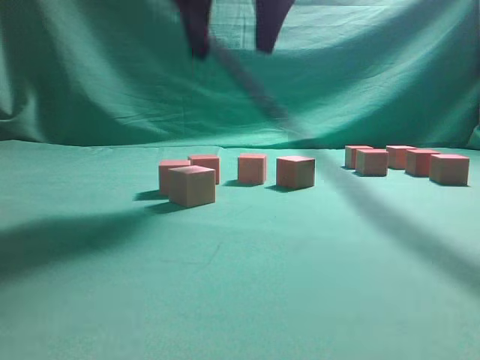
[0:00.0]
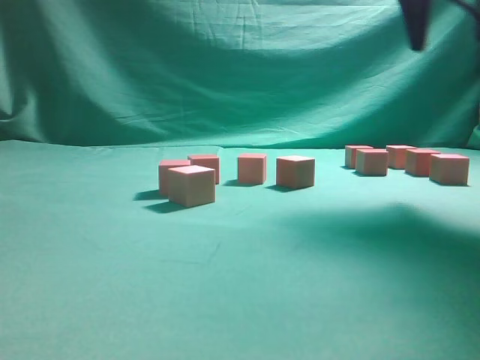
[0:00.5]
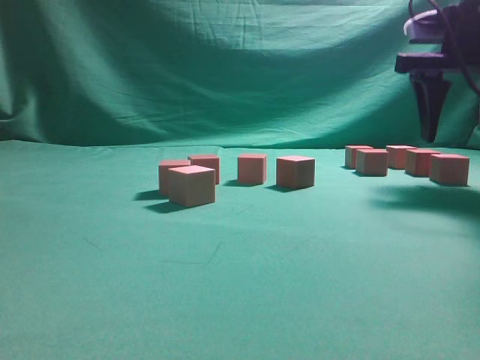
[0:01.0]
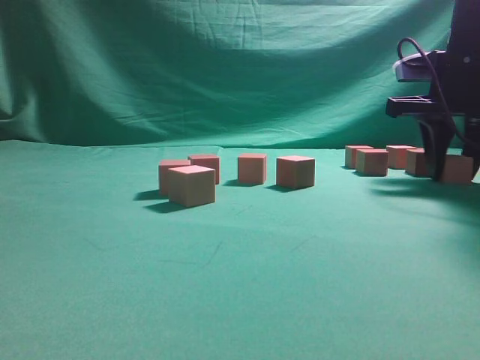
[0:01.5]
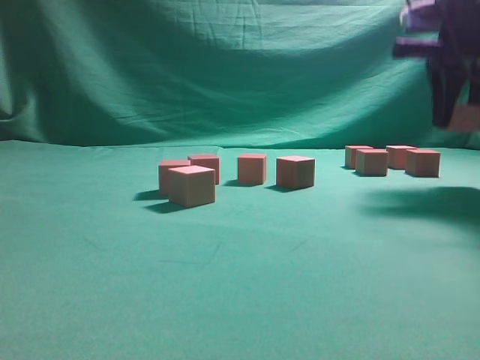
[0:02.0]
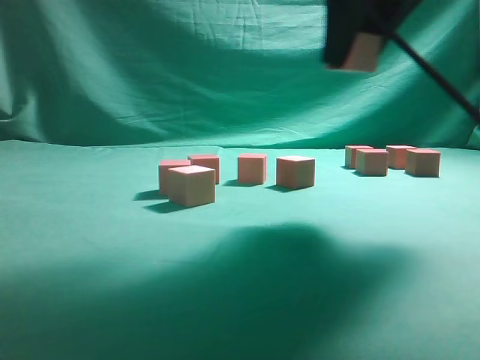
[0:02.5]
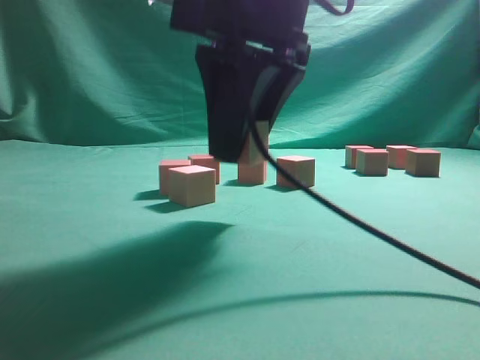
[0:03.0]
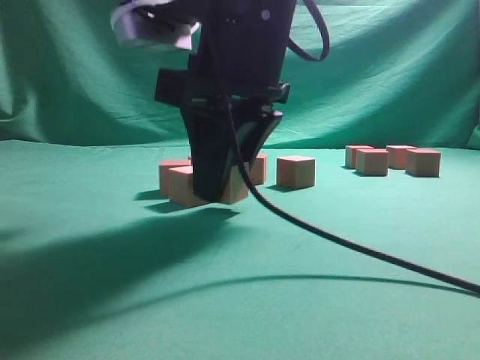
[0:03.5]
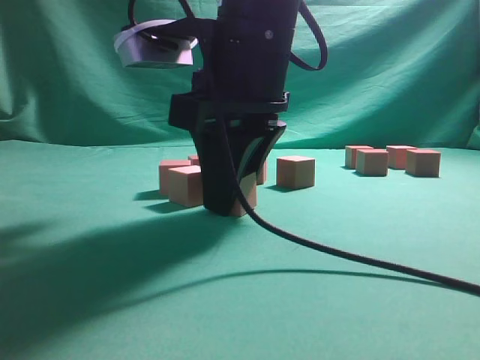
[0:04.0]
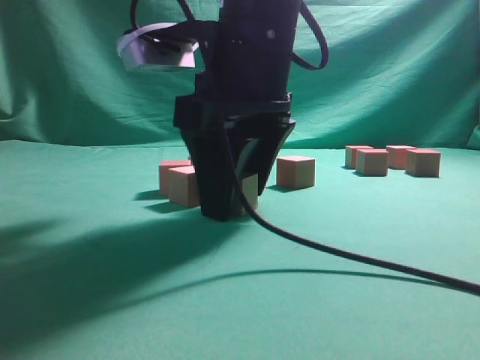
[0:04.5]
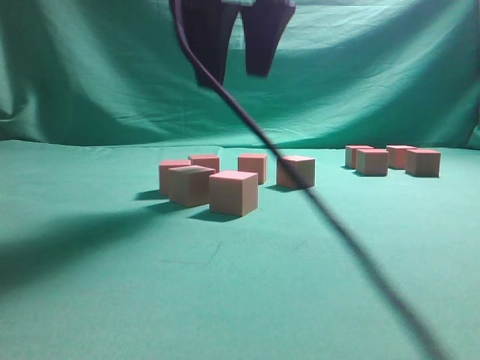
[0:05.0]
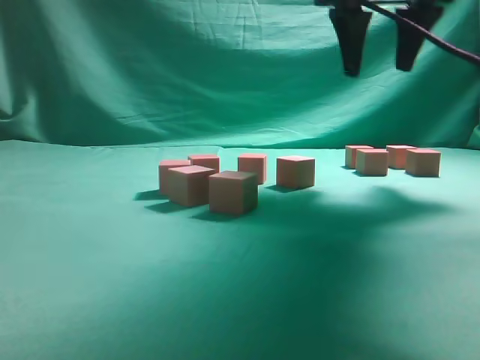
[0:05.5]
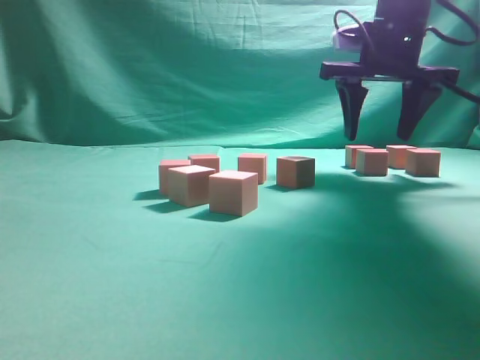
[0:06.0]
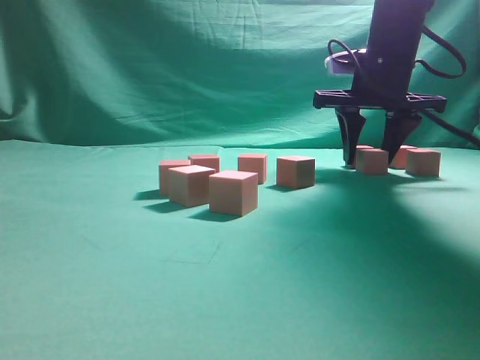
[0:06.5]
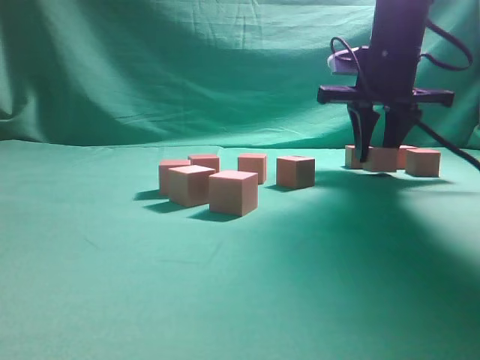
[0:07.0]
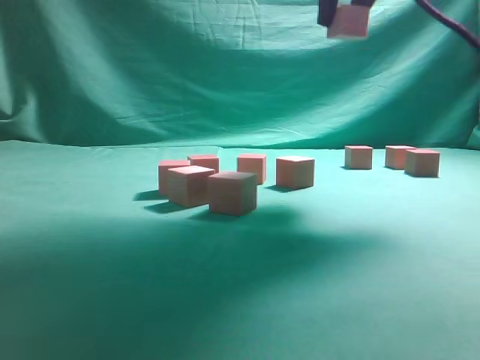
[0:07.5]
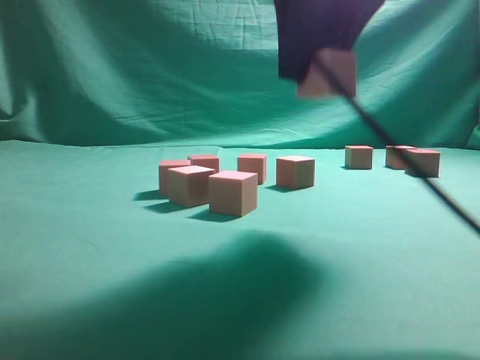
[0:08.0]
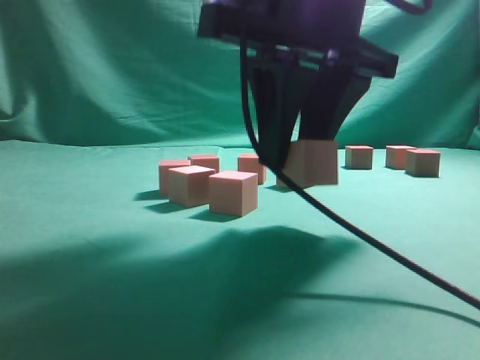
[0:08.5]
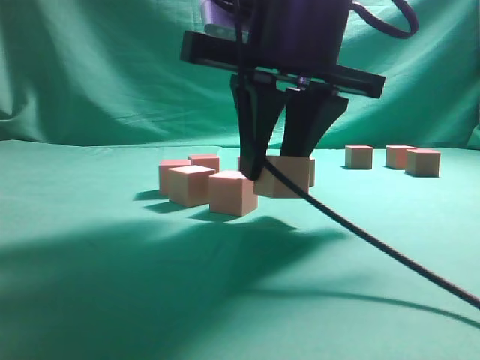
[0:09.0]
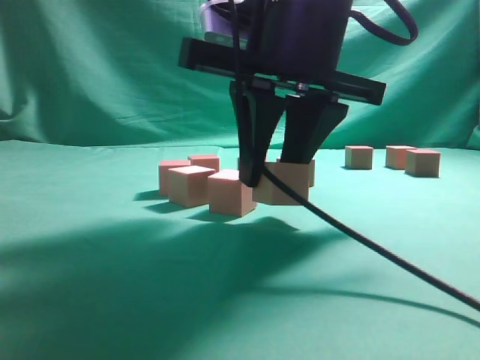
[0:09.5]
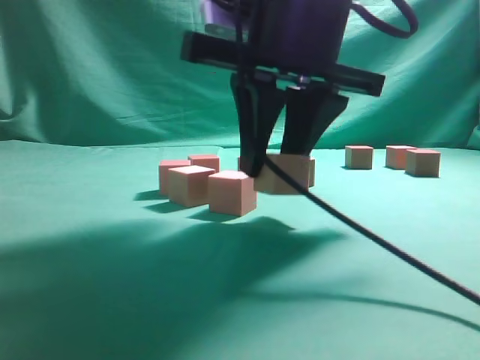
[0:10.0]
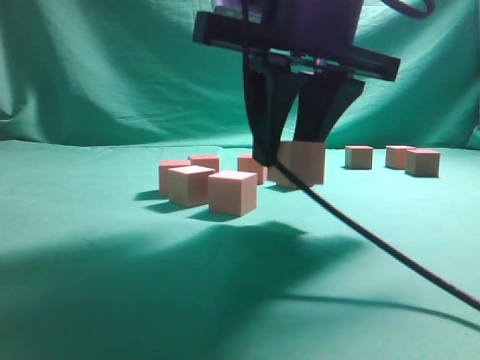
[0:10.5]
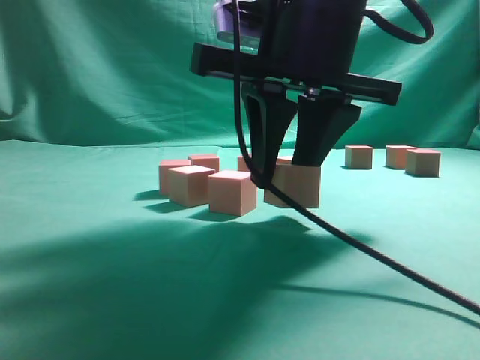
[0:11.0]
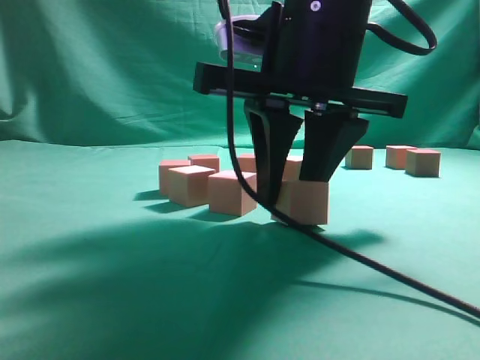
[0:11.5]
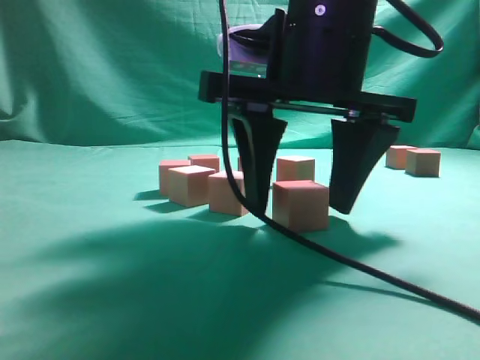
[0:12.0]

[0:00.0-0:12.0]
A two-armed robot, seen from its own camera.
Task of the whole recording: pick up the multiple cubes in two columns one by one and place them in another position on the table.
Step, 0:00.0 to 0:01.5: Pick up the block on the table.
Step, 0:02.0 to 0:05.0: Place the block at the correct position to assemble the letter S.
Step, 0:05.5 to 0:07.0: Pick up the block on the table.
0:00.0 to 0:02.0: The right gripper is displaced to the right by about 25 cm, and closes up.
0:02.0 to 0:04.0: The right gripper is displaced to the left and backward by some 25 cm.
0:04.0 to 0:06.0: The right gripper shifts approximately 25 cm forward and to the right, and opens up.
0:06.0 to 0:08.0: The right gripper goes about 20 cm backward and to the left, and closes up.
0:08.0 to 0:10.0: The right gripper shifts roughly 10 cm downward.

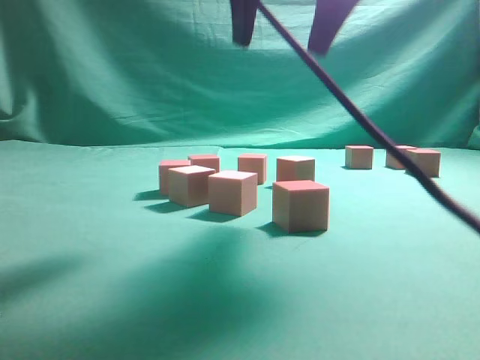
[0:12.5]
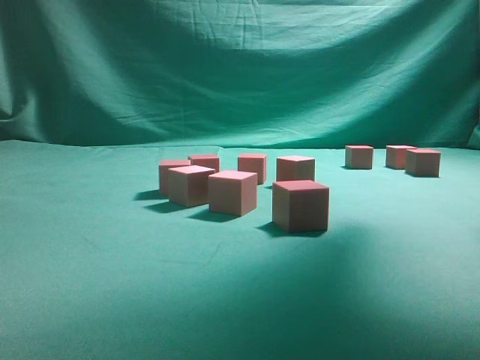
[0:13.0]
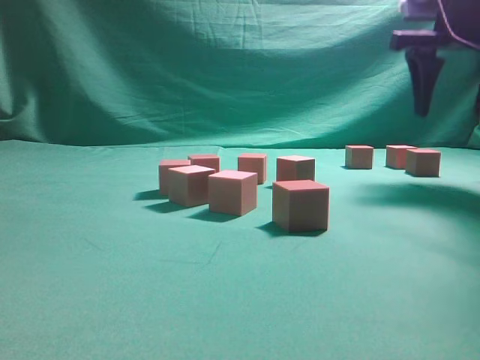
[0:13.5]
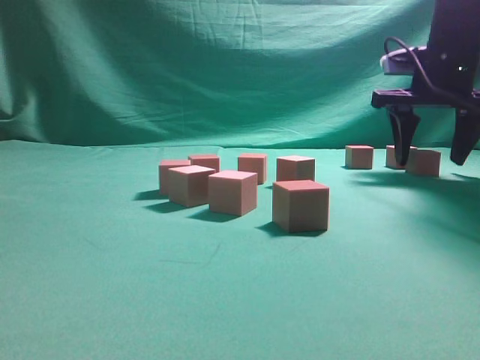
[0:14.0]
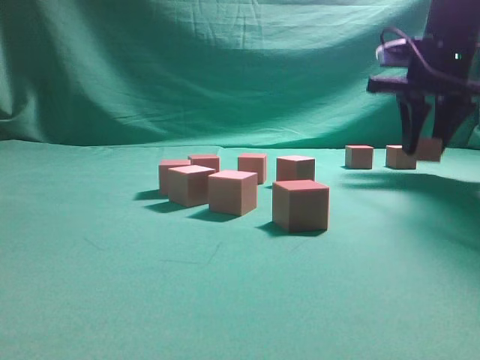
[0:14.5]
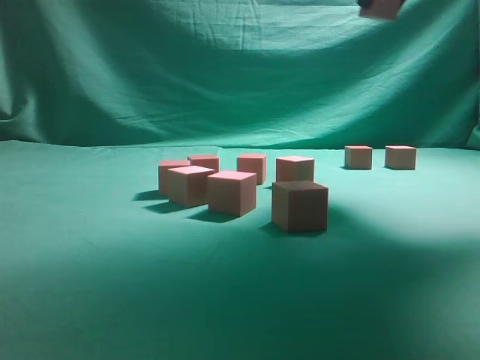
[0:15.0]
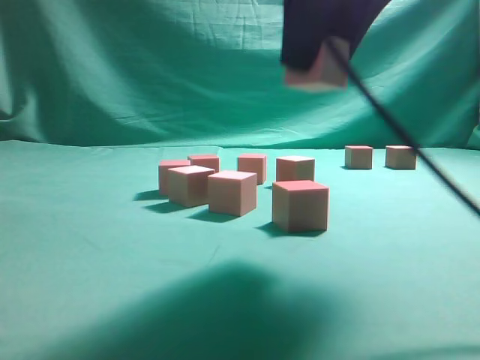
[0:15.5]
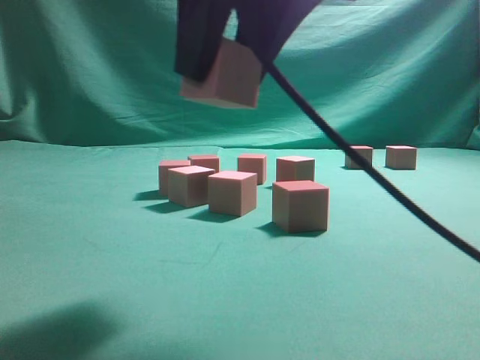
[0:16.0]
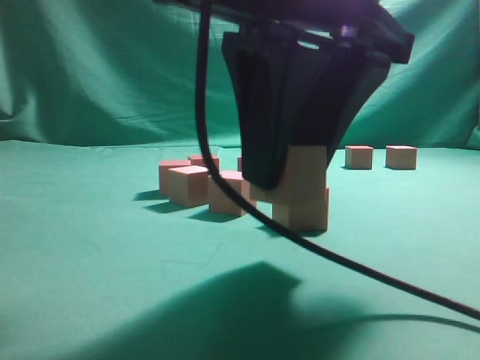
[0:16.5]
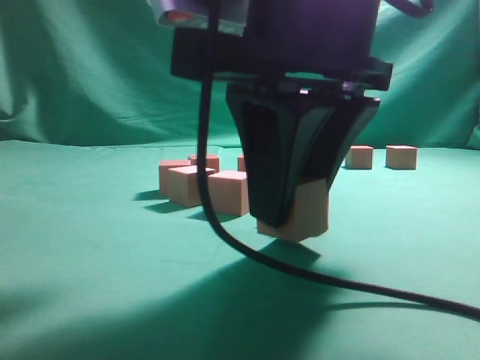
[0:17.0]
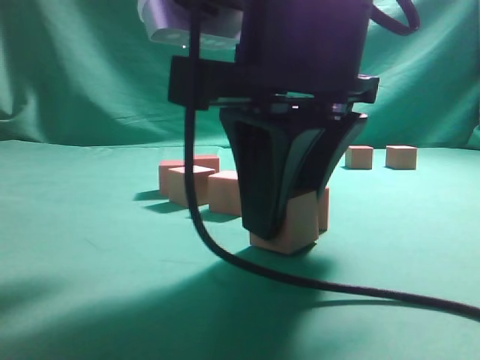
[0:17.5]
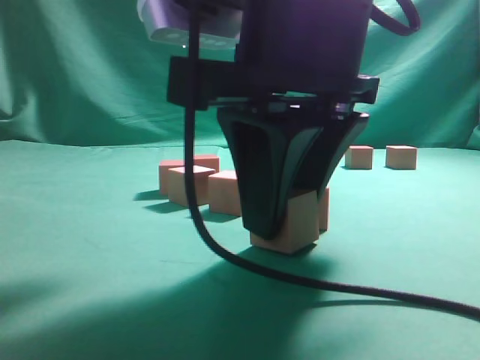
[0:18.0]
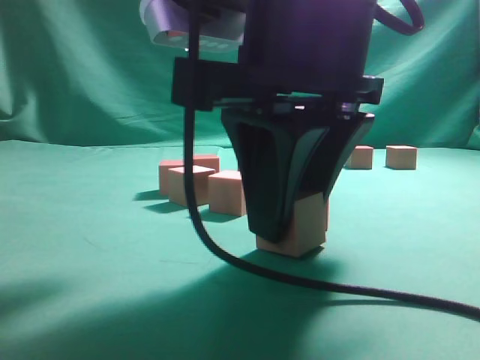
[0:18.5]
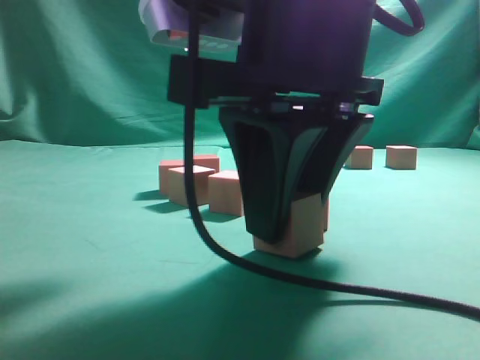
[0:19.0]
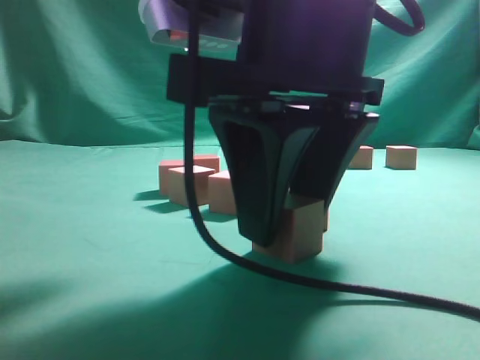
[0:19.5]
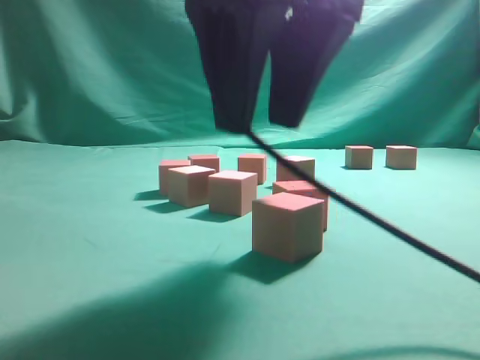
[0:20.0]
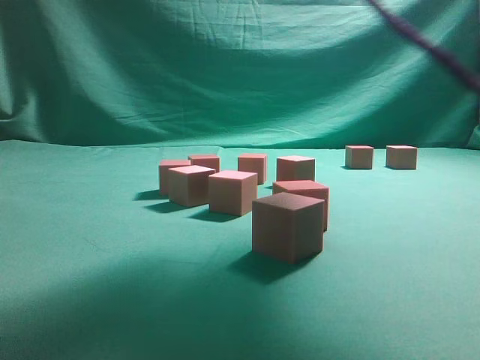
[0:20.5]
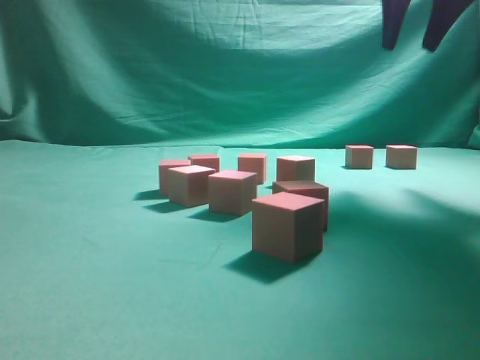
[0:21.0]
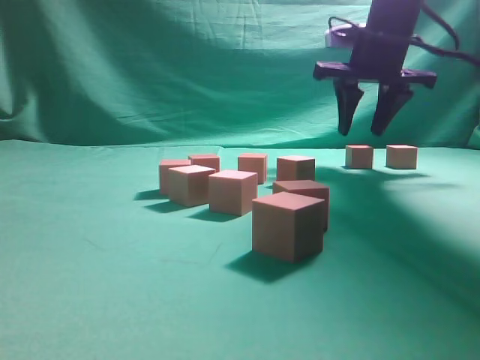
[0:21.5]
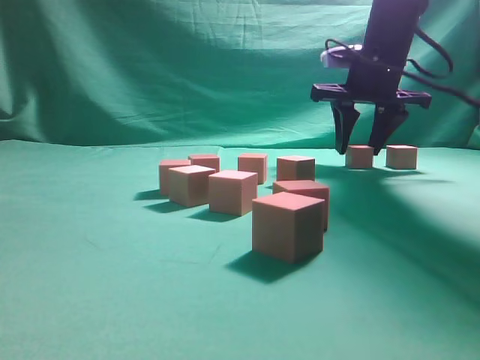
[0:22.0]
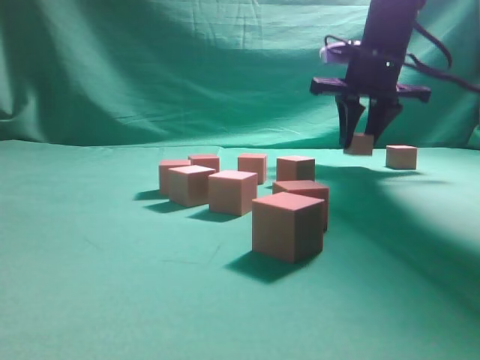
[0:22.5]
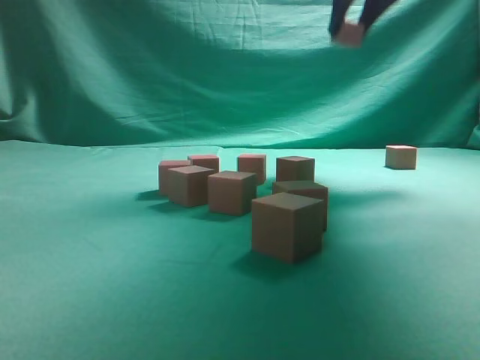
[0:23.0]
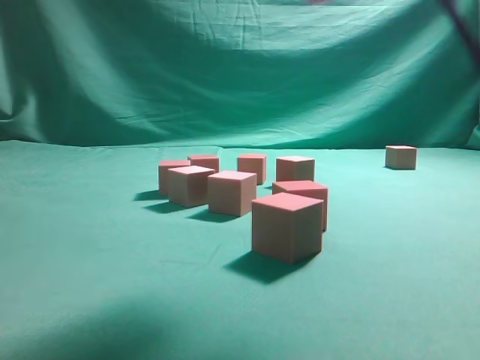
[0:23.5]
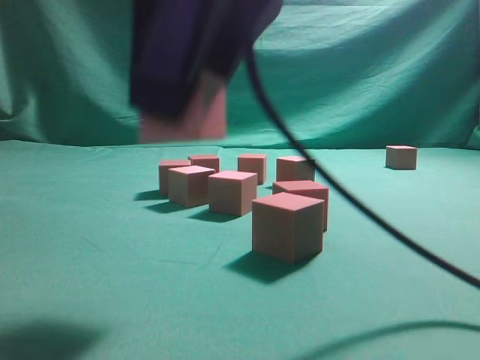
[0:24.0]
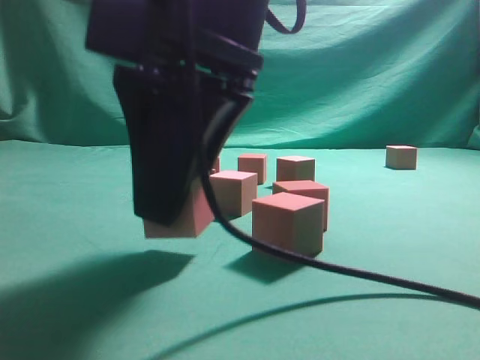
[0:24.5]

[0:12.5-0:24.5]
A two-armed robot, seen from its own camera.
Task of the whole recording: pick up the multiple cubes in two columns one by one and place them in another position on the table.
Step, 0:12.5 to 0:14.5: Pick up the block on the table.
Step, 0:15.0 to 0:20.0: Place the block at the correct position to assemble the letter S.
Step, 0:20.5 to 0:22.5: Pick up the block on the table.
0:12.5 to 0:14.5: The right gripper heads forward, to the right and downward, covering some 25 cm, and closes.
0:14.5 to 0:16.5: The right gripper travels backward and to the left by roughly 30 cm.
0:18.5 to 0:20.5: The right gripper goes some 20 cm upward and forward.
0:20.5 to 0:22.5: The right gripper moves forward and downward, about 25 cm.
0:22.5 to 0:24.5: The right gripper goes roughly 35 cm backward and to the left.

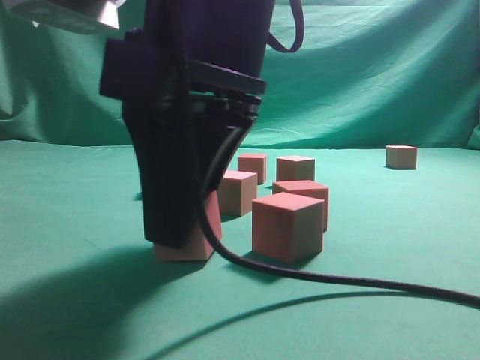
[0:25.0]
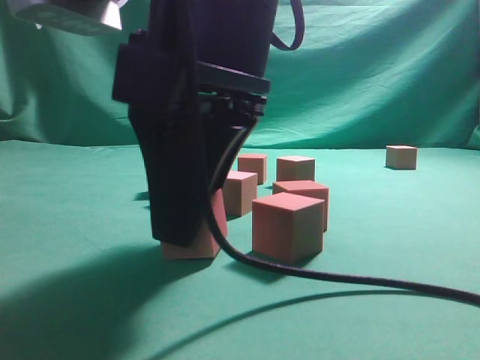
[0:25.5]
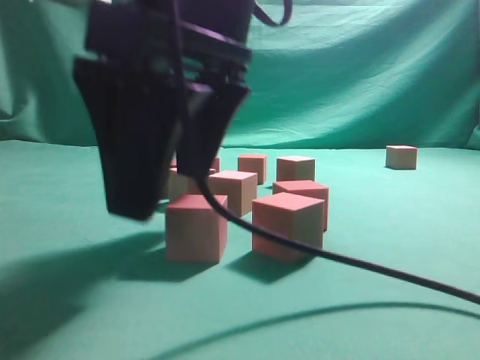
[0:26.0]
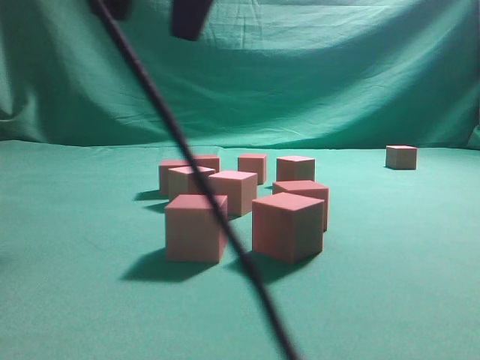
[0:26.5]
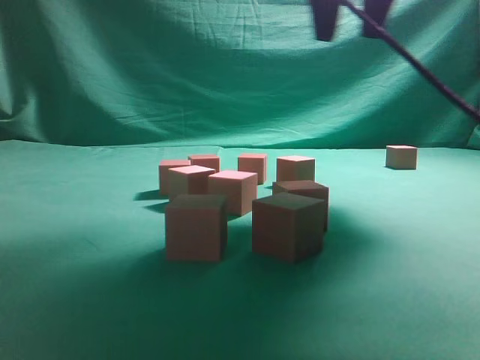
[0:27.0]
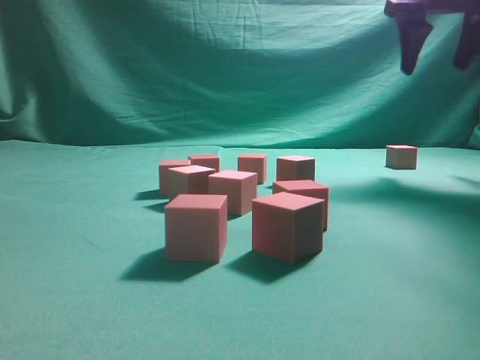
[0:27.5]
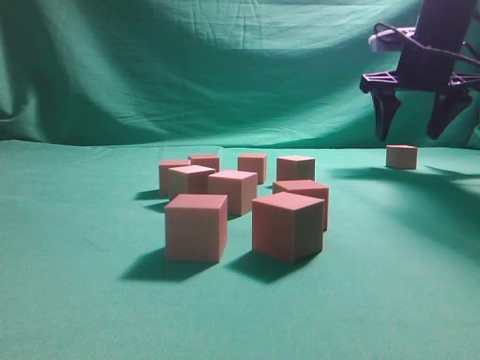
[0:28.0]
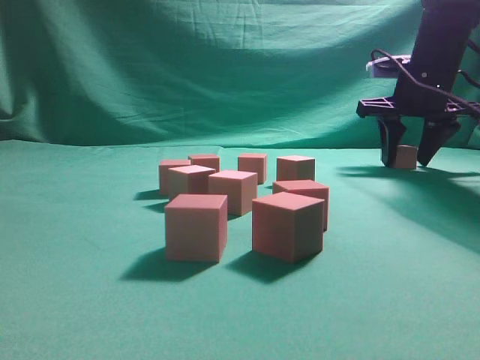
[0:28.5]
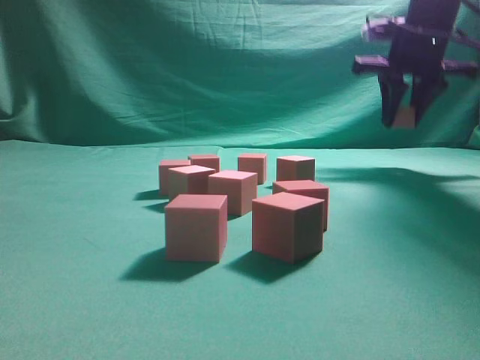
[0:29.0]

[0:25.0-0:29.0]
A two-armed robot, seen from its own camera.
Task of the whole recording: pick up the multiple cubes in two columns one by one and place them in another position on the table.
Step, 0:26.5 to 0:28.5: Pick up the block on the table.
0:25.0 to 0:27.0: The right gripper shifts about 25 cm forward, upward and to the right, and opens its fingers.
0:27.0 to 0:29.0: The right gripper shifts about 20 cm forward, to the right and downward, and closes.
